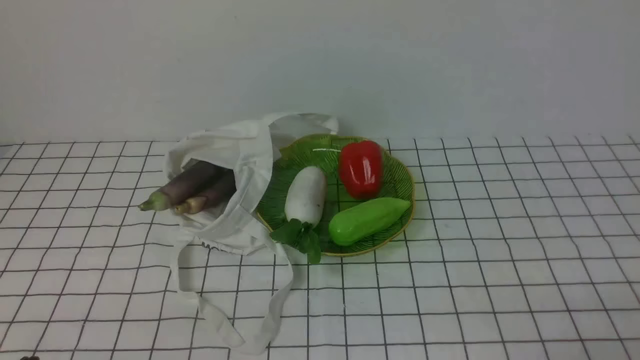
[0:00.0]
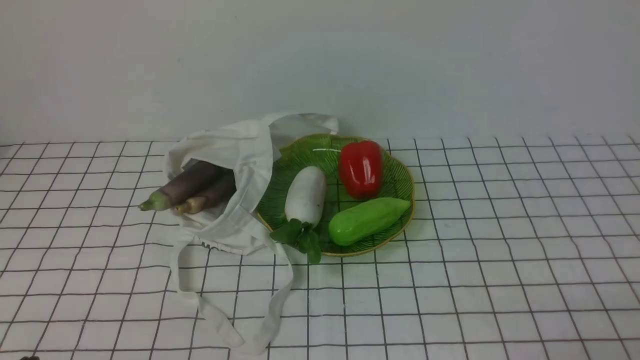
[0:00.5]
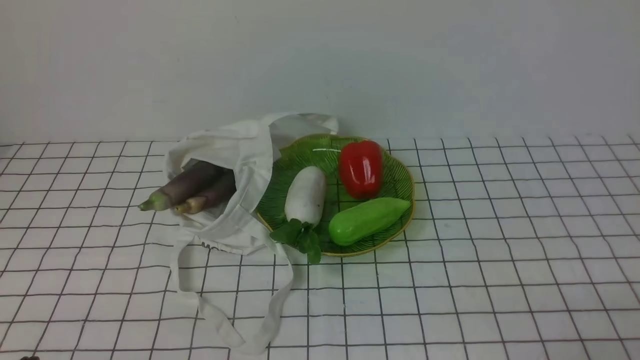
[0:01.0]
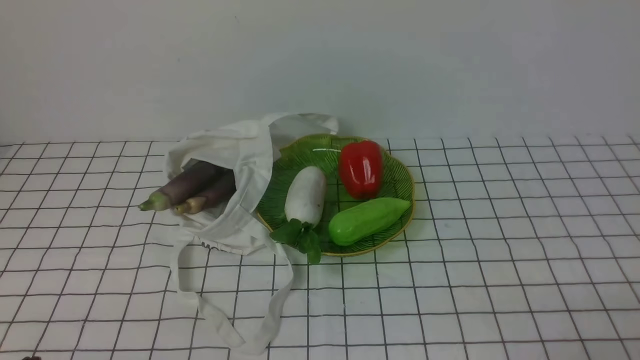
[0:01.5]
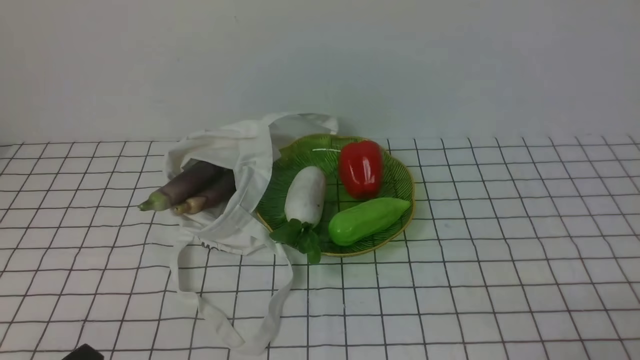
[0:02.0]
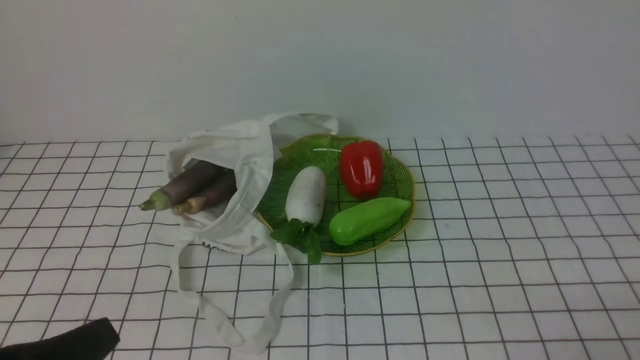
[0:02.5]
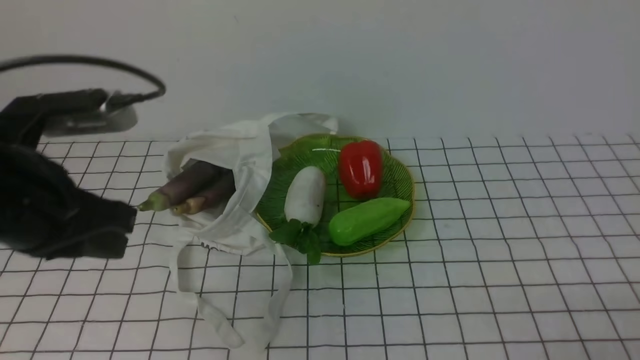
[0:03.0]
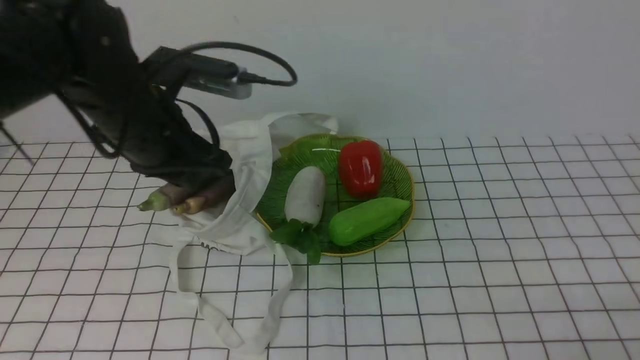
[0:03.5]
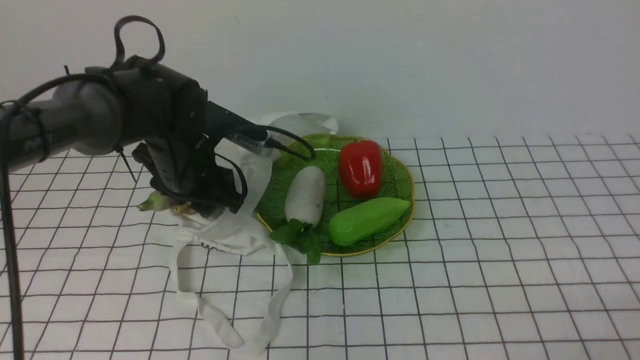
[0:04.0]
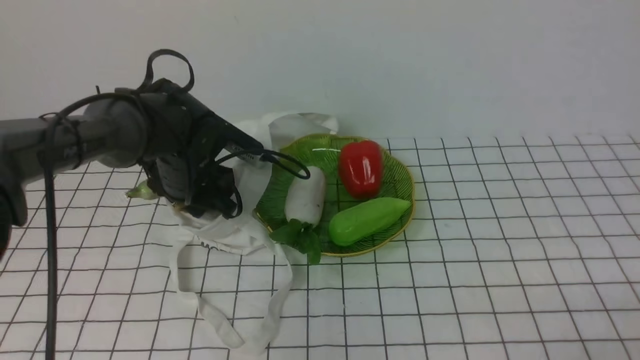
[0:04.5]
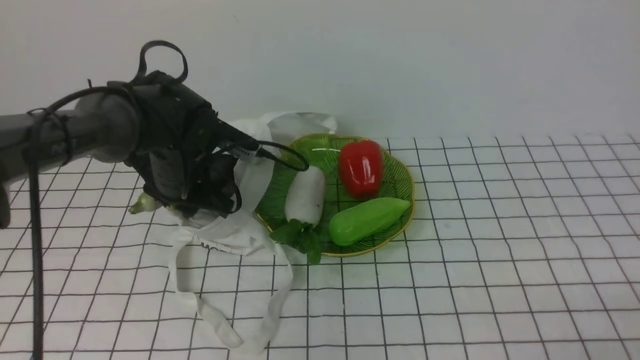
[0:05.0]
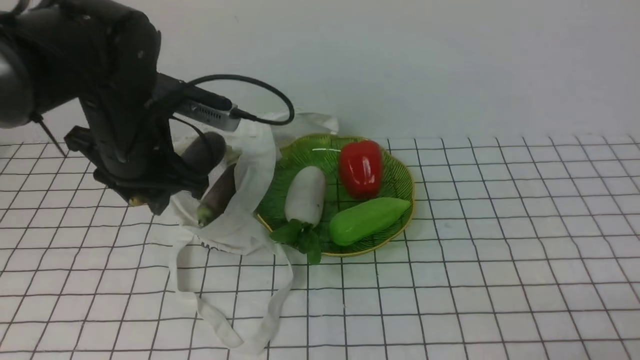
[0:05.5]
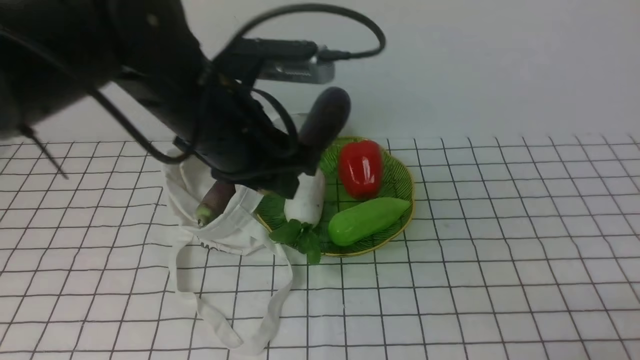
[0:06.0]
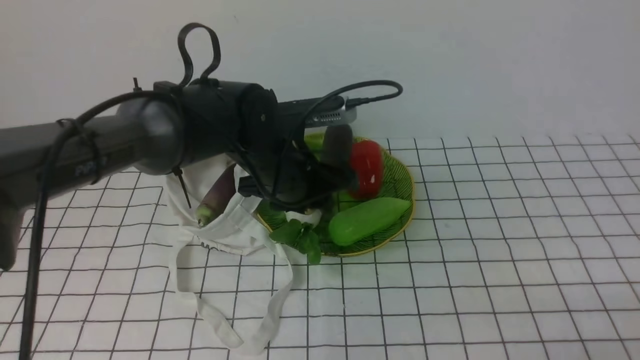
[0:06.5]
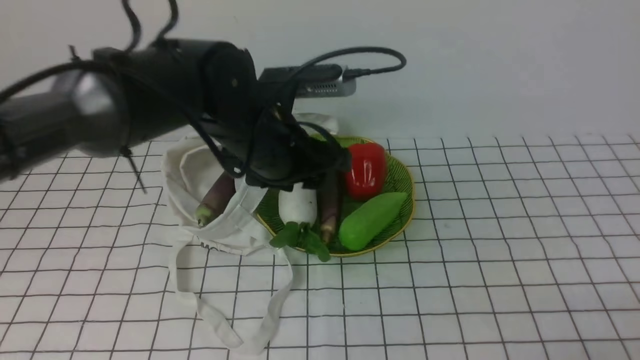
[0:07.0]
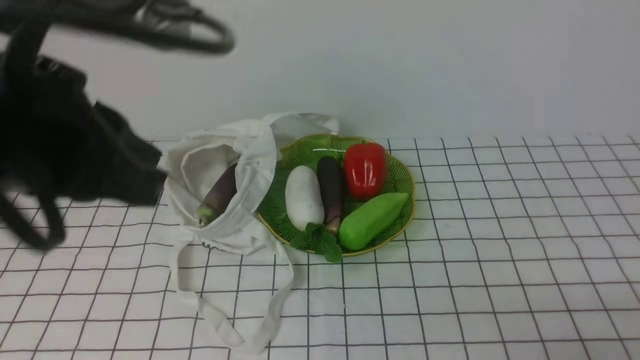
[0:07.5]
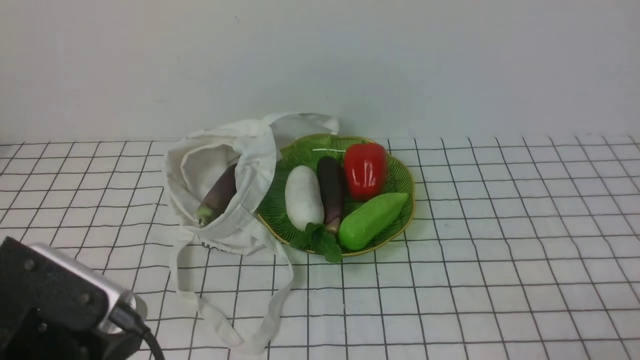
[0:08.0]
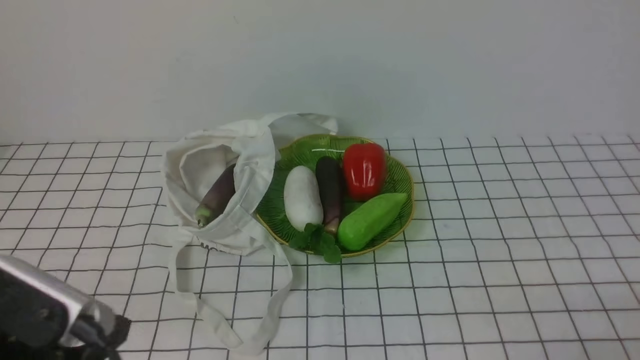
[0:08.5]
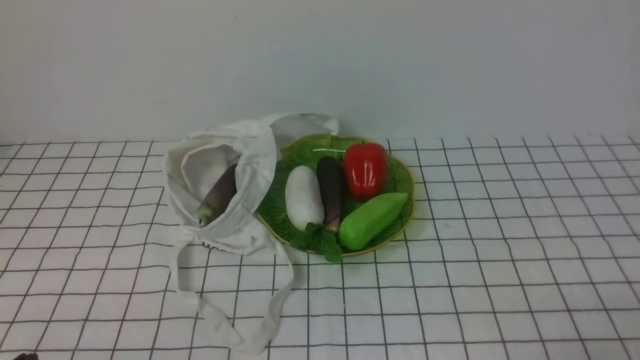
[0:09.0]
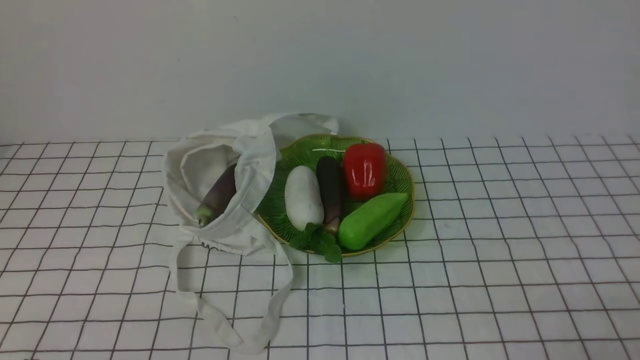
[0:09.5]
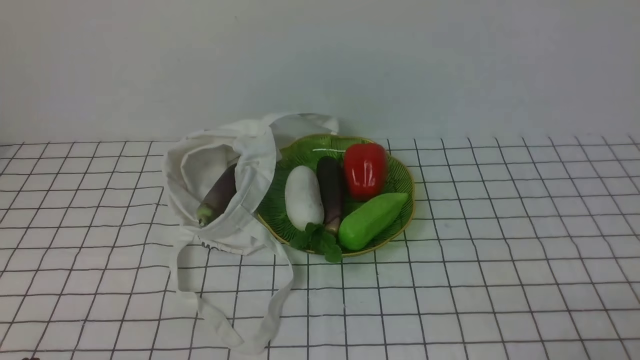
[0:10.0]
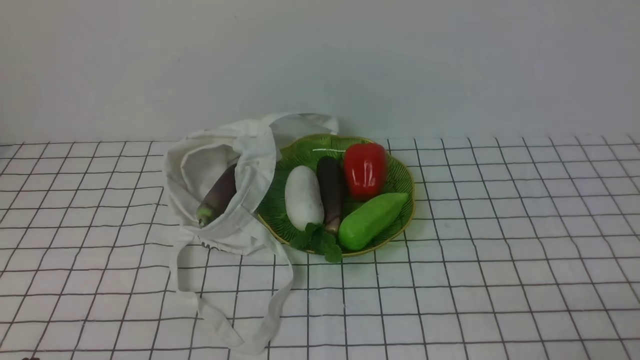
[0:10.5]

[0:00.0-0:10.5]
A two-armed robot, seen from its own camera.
Task of the whole recording: take vegetables from bag on white checkered tablecloth place on plate.
Step, 0:00.0 to 0:04.5: Grasp the eggplant with left gripper.
Step, 0:05.0 to 0:07.0: Place the eggplant on the plate with left gripper.
0:02.0 to 0:04.0: The left gripper moves forward, approximately 35 cm, and opens.
0:04.0 to 0:06.5: The left gripper shifts roughly 10 cm to the right, and reaches roughly 10 cm upward, then returns.
0:06.5 to 0:08.5: The left gripper goes some 30 cm backward and to the left, and closes.
0:08.5 to 0:10.5: The left gripper is displaced downward by about 10 cm.

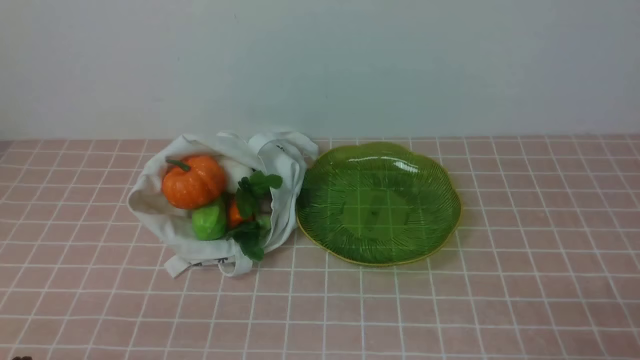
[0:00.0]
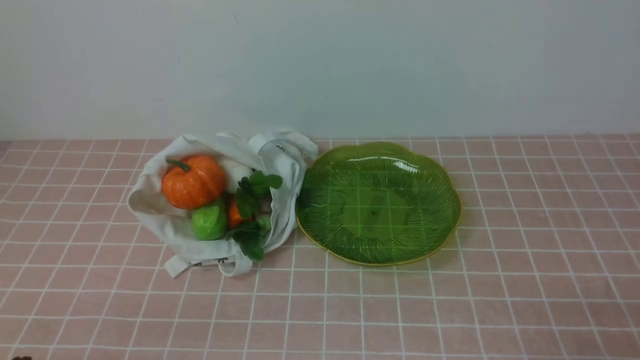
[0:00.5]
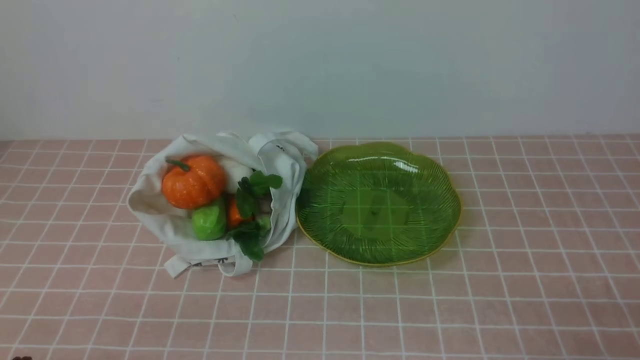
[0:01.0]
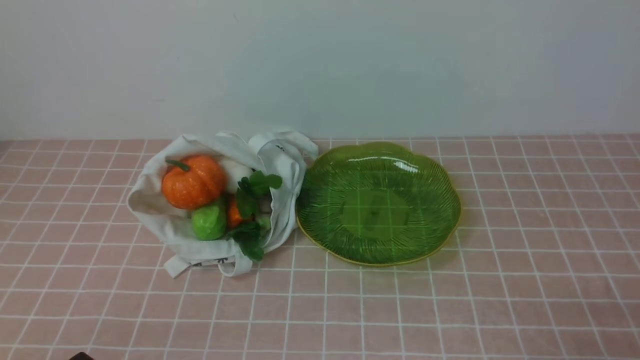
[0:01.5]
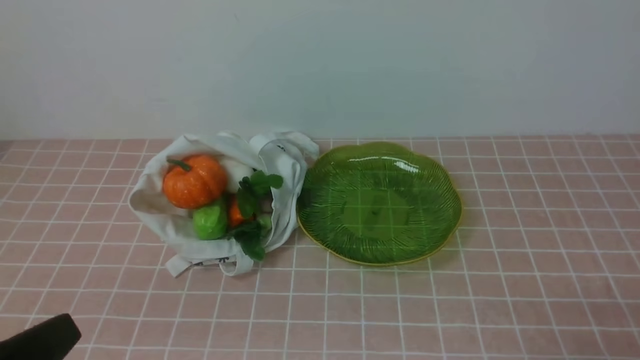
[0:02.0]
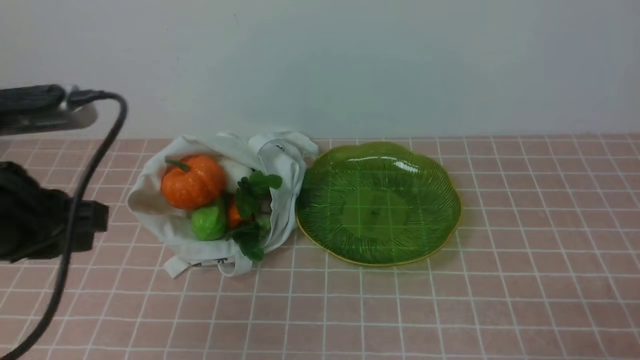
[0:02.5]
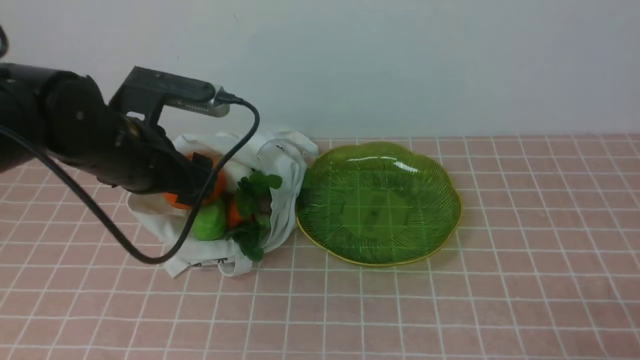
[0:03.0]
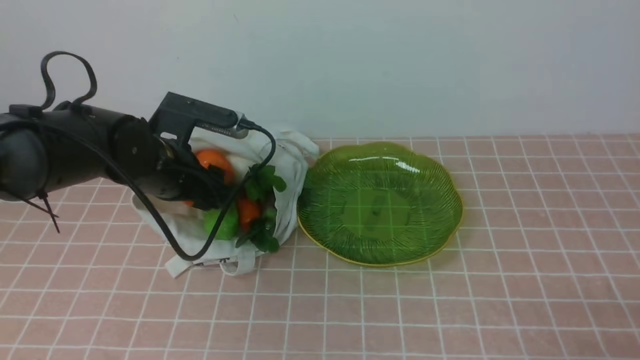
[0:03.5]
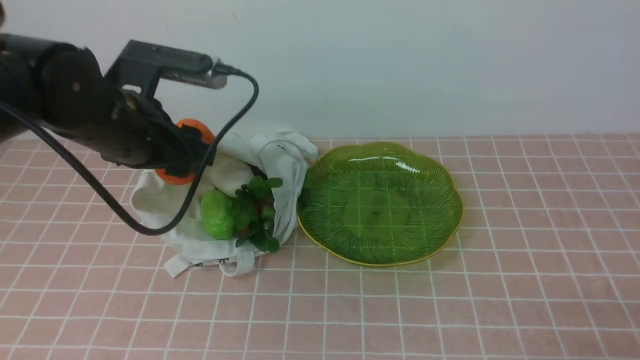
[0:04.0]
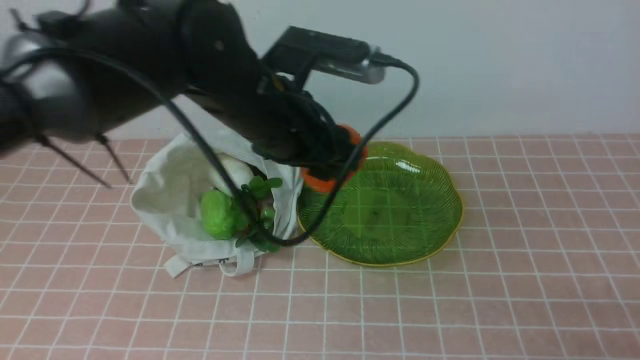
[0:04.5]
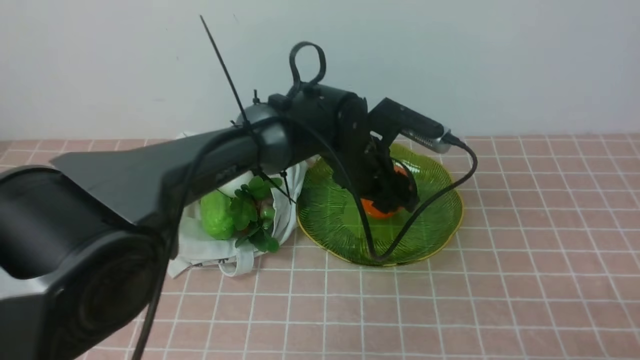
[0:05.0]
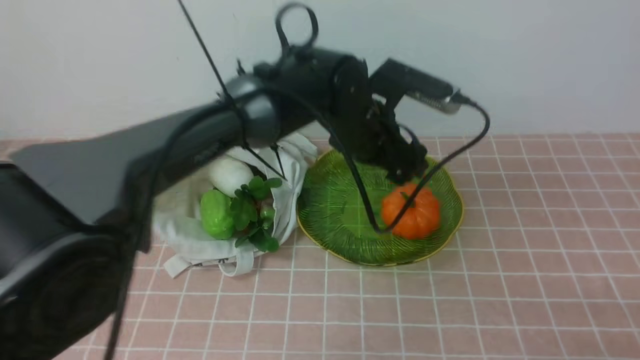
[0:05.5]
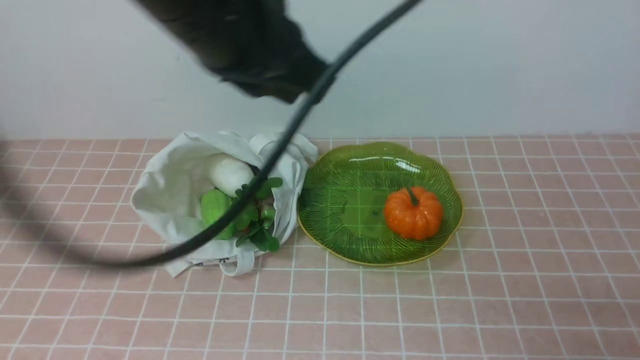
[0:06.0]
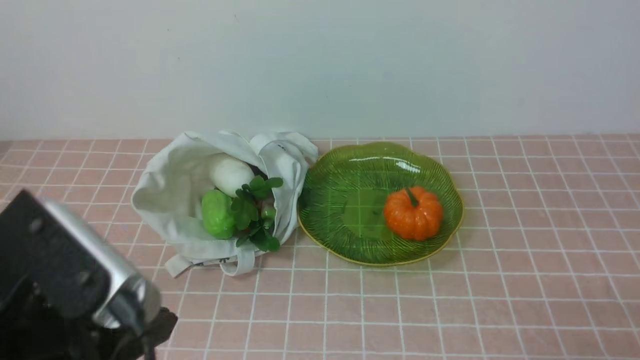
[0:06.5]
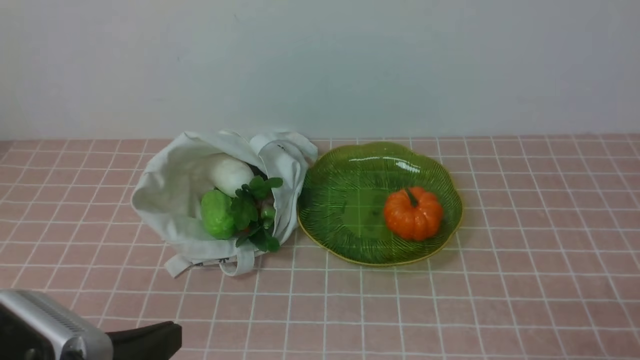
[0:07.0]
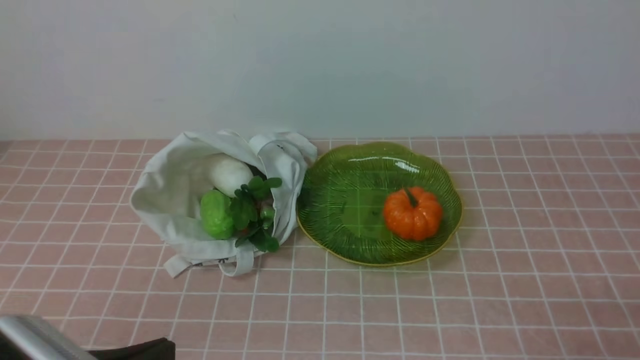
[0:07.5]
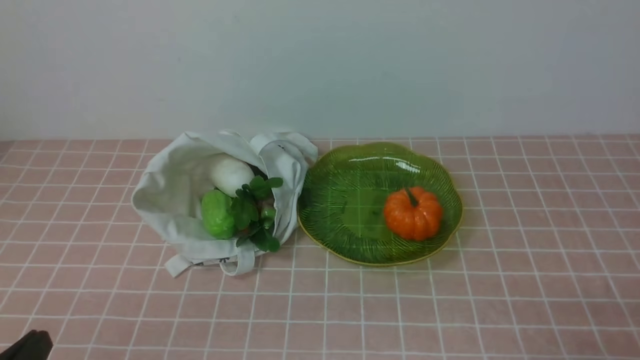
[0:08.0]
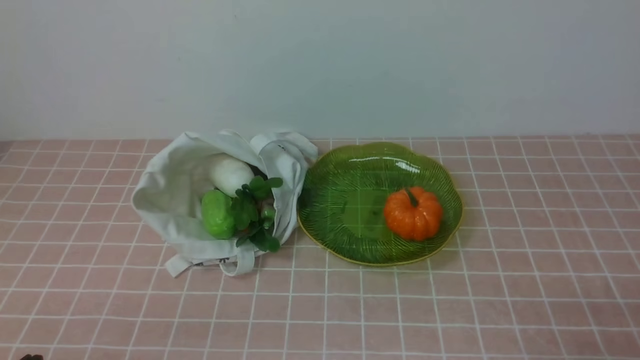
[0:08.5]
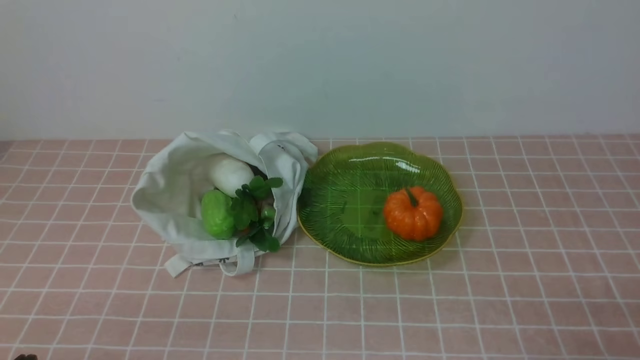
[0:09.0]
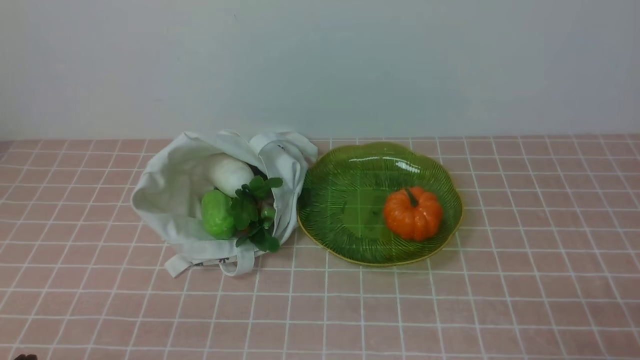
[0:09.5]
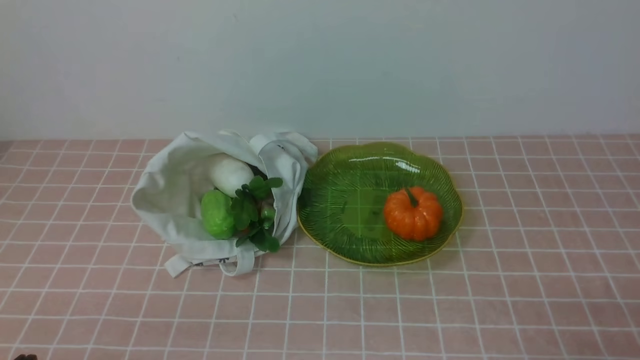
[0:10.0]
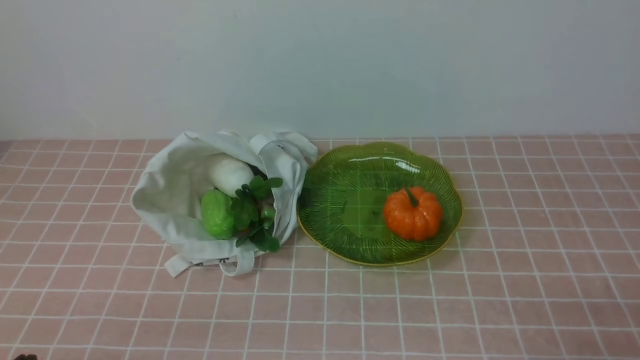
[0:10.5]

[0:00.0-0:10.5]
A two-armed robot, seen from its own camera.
Task of the whole recording: take vegetables from bag on pink coffee tablecloth place on plate.
Step, 0:00.0 to 0:03.5: Grasp the pumpkin with left gripper.
Step, 0:04.0 to 0:05.5: Place the pumpkin on the plate with left gripper.
0:00.0 to 0:02.0: The left gripper heads upward, covering roughly 10 cm.
0:02.0 to 0:04.0: The left gripper goes roughly 25 cm forward, and opens its fingers.
0:04.0 to 0:06.5: The left gripper moves backward, approximately 20 cm, and closes its fingers.
0:06.5 to 0:08.5: The left gripper is displaced downward and to the left by roughly 15 cm.
0:08.5 to 0:10.5: Both grippers stay about where they are.
